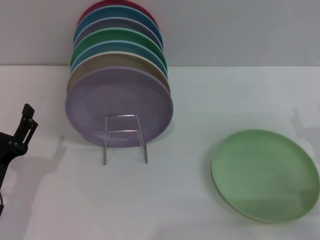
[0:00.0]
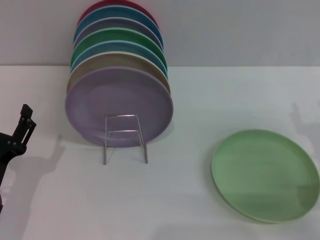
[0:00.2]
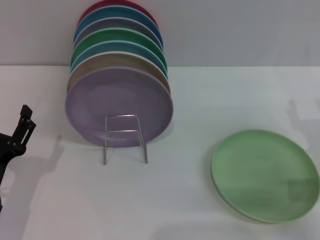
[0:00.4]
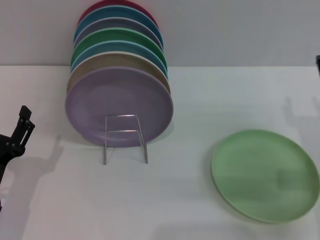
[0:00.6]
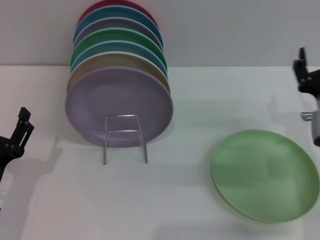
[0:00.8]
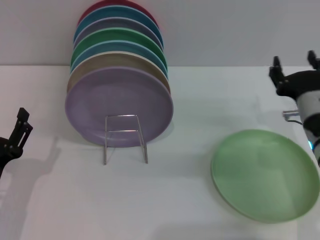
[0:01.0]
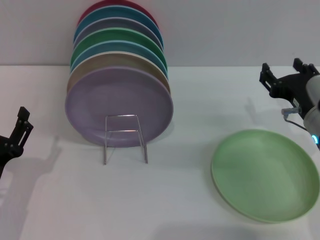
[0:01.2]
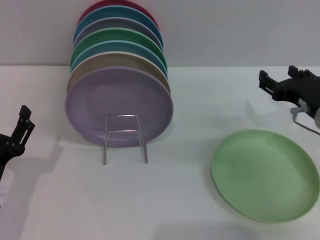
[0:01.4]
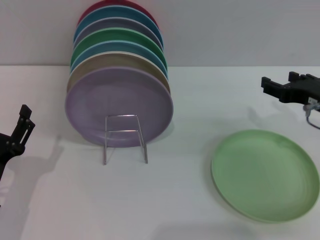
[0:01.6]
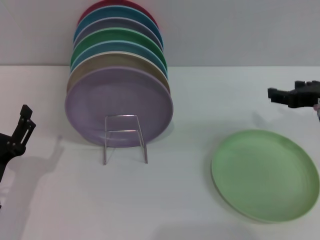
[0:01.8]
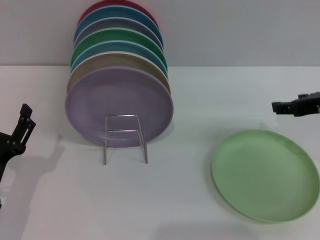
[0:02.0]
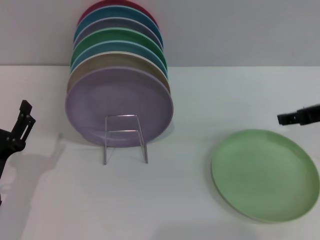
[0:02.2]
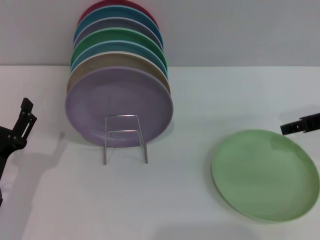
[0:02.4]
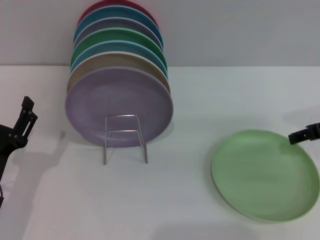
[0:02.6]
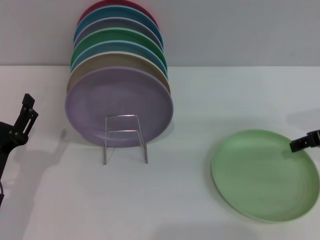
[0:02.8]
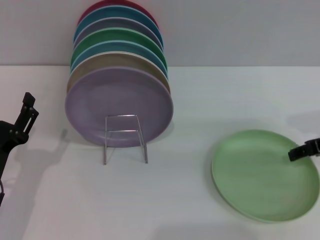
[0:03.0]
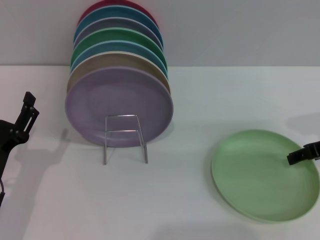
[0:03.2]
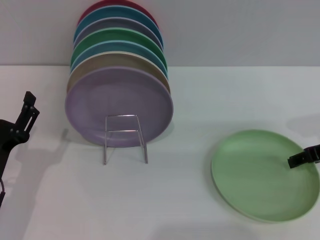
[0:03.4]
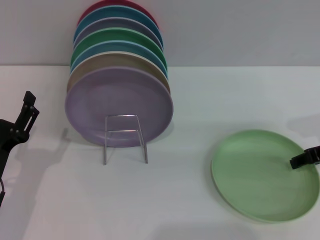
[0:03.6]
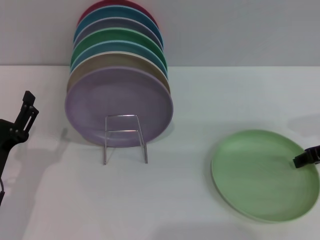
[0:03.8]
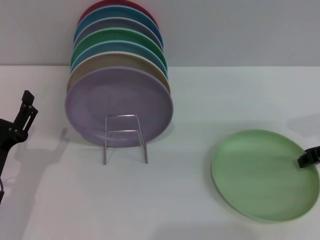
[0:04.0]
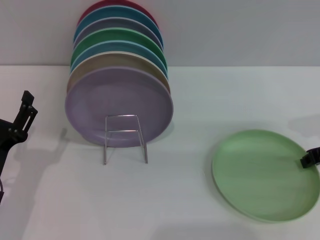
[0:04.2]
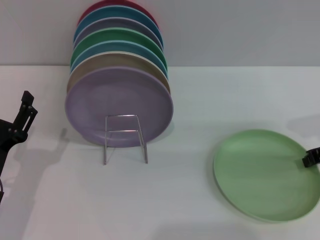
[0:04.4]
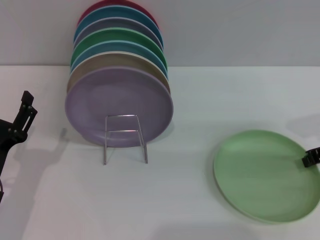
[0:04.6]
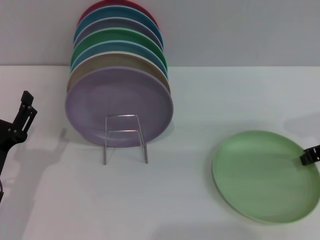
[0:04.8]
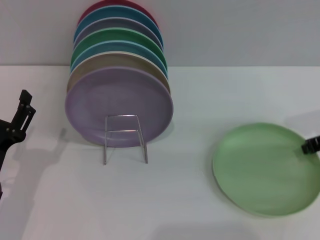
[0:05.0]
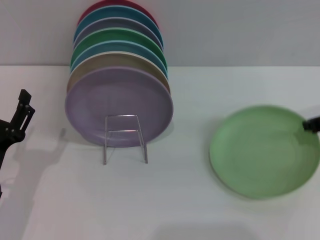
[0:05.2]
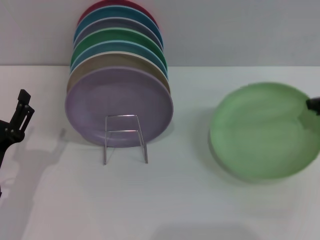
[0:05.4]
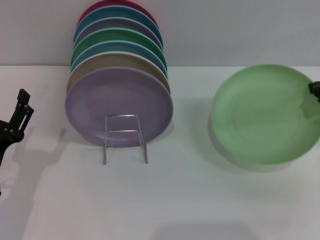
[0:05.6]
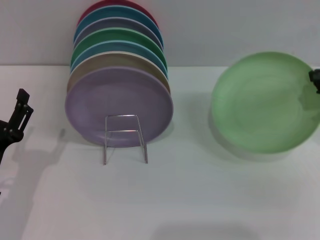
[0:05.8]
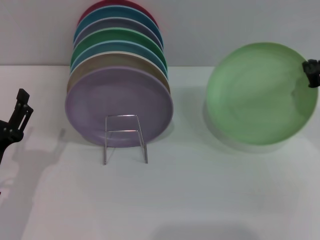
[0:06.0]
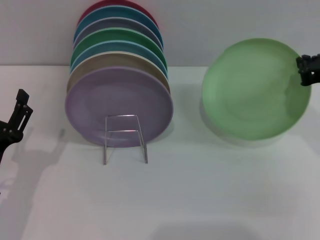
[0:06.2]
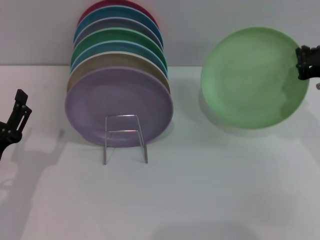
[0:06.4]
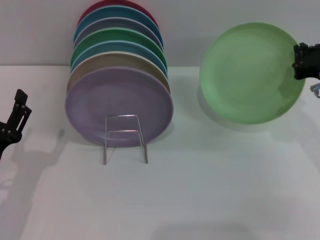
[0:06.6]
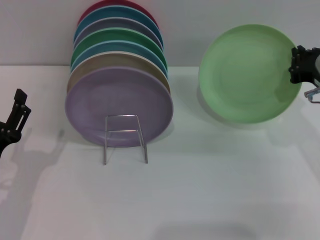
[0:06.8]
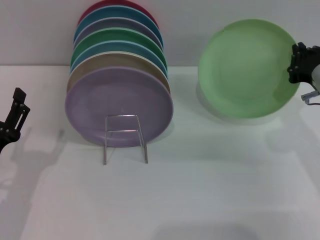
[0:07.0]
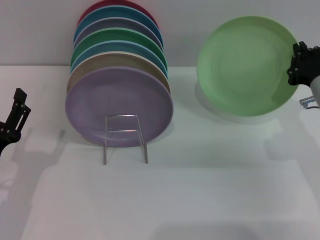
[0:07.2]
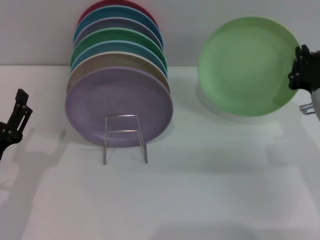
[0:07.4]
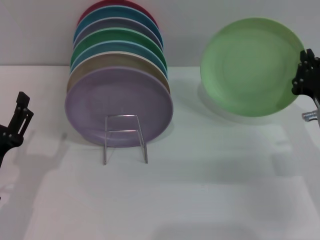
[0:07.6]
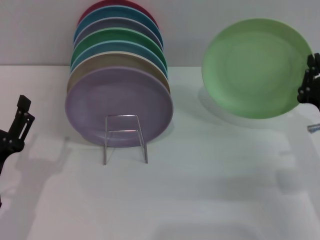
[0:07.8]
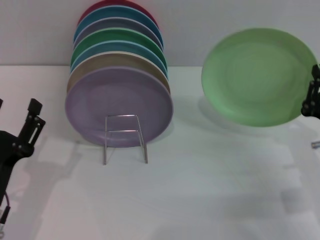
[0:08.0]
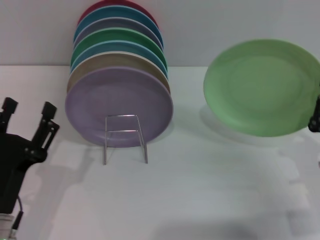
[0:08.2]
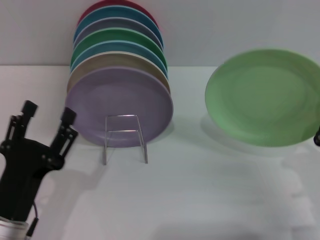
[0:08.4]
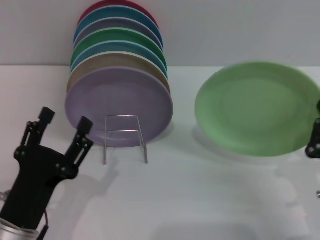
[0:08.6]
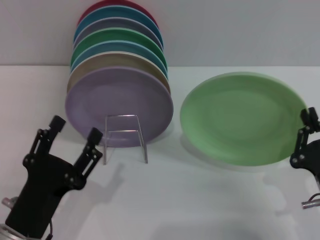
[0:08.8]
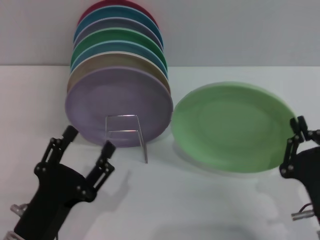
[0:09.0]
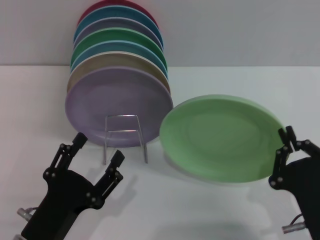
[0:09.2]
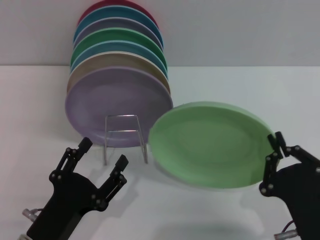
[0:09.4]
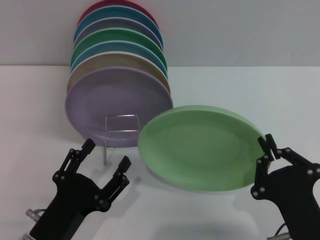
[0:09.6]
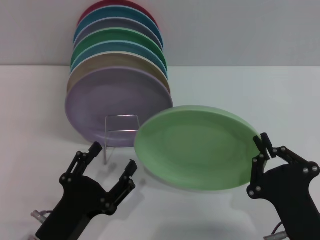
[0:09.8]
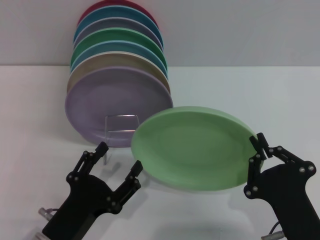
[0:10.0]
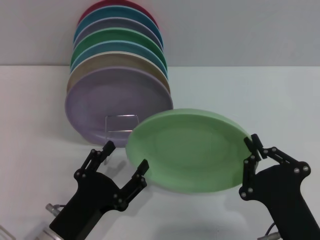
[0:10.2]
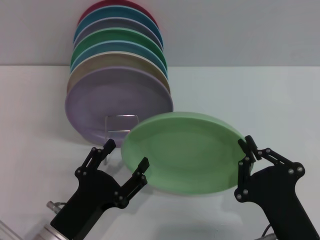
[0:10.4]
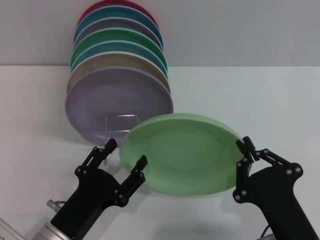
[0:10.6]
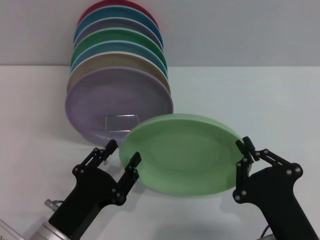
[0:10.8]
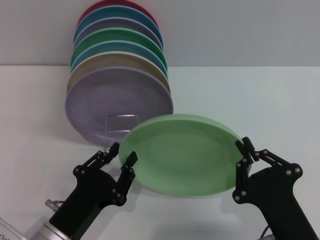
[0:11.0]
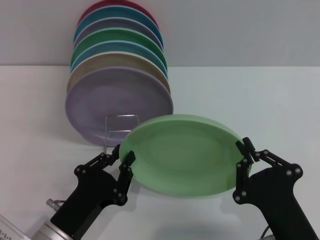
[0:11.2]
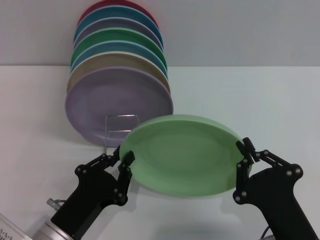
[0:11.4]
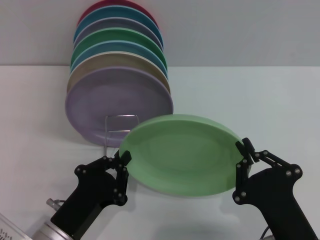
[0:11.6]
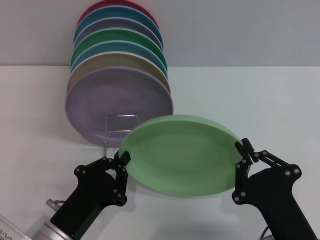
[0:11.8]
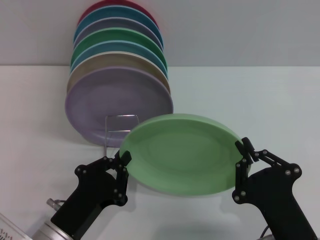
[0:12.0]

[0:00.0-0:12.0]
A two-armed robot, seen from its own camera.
Task of the whole recording: Grip the plate with one hand, pass it to the other, then set it on the shelf.
Step, 0:00.0 to 0:06.0: Pick up the plate with the right gripper.
0:00.0 to 0:01.6: The right gripper travels upward and forward by about 10 cm.
0:03.0 to 0:04.4: The right gripper closes.
0:04.4 to 0:06.0: The right gripper goes roughly 5 cm upward.
0:06.0 to 0:07.6: The right gripper heads downward, covering some 10 cm.
0:07.6 to 0:09.0: The left gripper is displaced to the right and backward by about 10 cm; the right gripper heads backward, covering approximately 15 cm.
0:10.4 to 0:12.0: The left gripper closes its fingers.

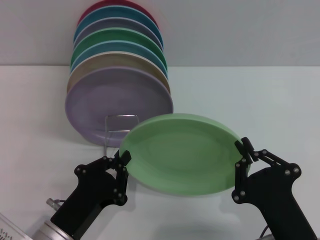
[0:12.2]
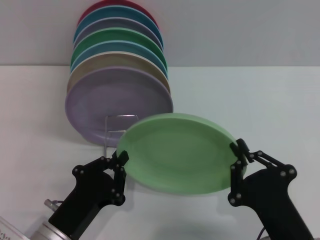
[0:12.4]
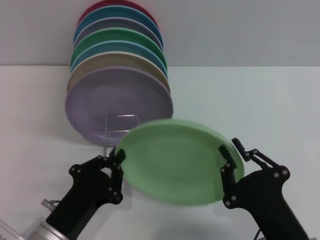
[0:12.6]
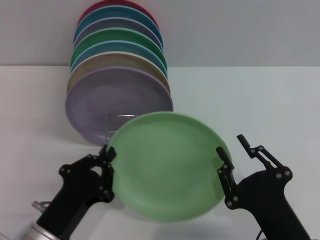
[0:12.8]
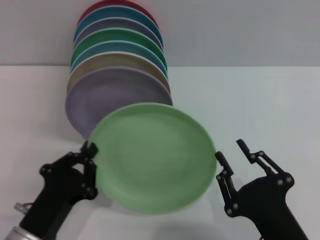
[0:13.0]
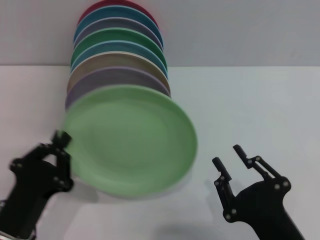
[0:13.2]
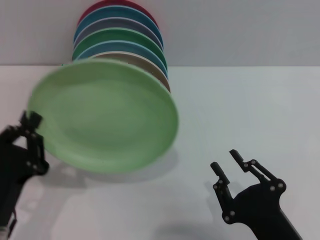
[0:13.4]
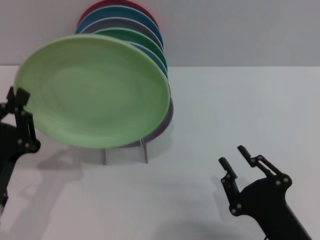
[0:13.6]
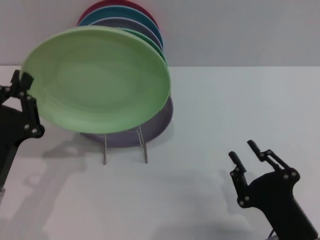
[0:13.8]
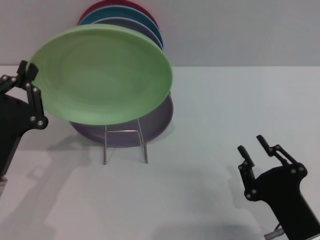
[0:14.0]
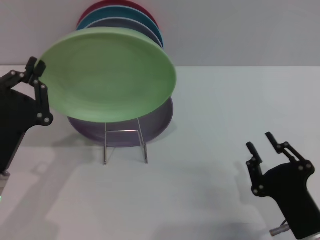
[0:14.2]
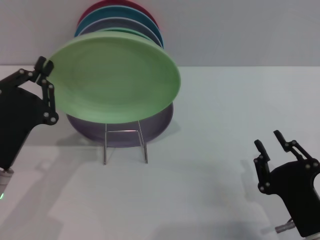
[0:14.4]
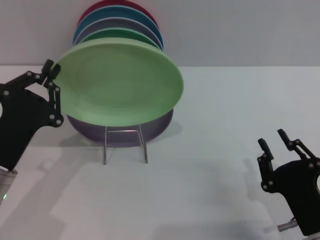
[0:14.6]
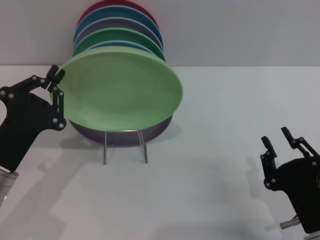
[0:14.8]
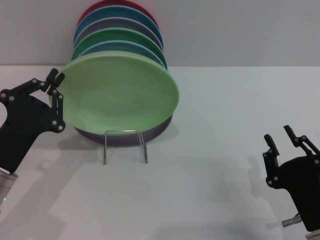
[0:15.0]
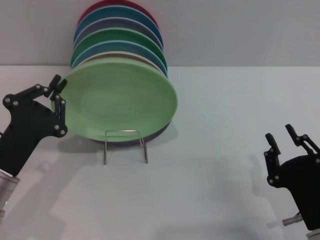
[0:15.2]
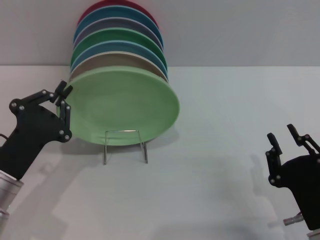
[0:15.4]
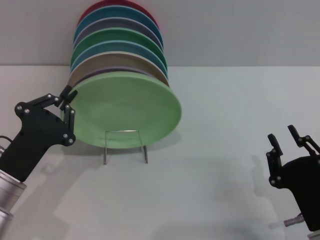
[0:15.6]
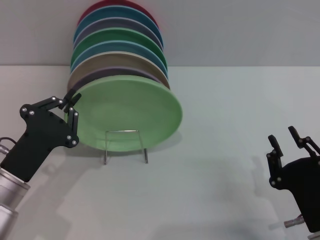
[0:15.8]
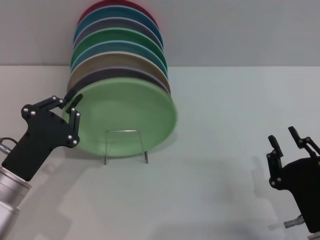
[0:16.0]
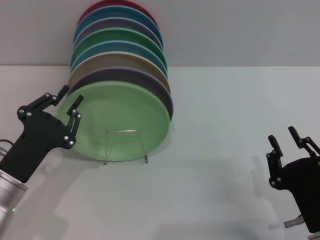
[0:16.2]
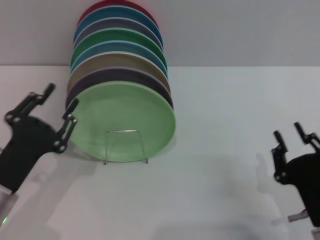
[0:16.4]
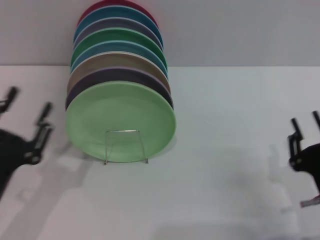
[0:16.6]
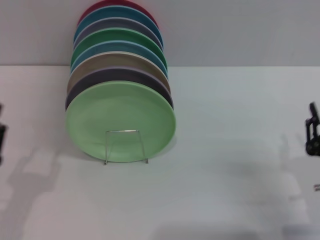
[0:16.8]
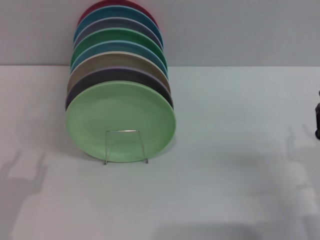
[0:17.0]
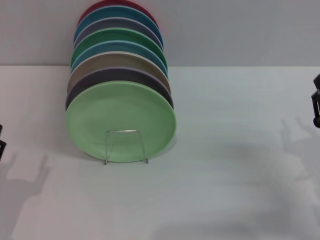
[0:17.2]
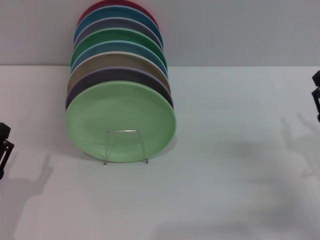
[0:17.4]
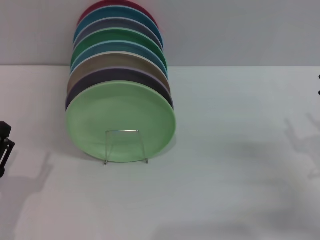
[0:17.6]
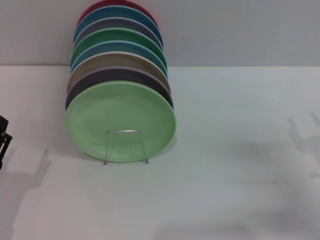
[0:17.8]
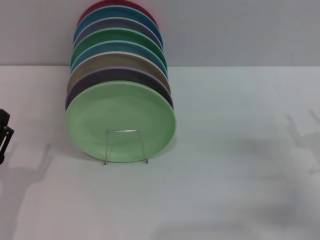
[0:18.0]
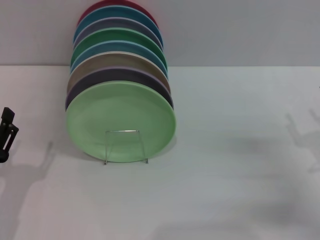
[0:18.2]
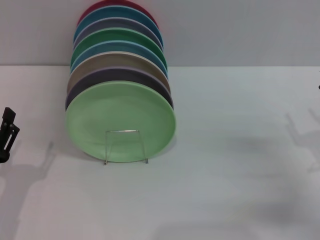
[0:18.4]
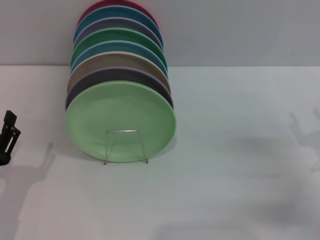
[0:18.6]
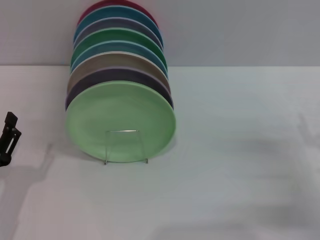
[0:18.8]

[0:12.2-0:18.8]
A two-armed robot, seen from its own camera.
Task of the whole recording: Grip the plate with one hand, pass it to the other, then set it on the shelf.
Step, 0:13.4 to 0:16.4: Place the plate on the shelf with the left gripper.
0:12.2 to 0:13.8: The right gripper opens its fingers. The left gripper shifts about 10 cm to the left and upward.
0:15.4 to 0:17.2: The right gripper heads to the right and forward, covering roughly 10 cm. The left gripper heads backward, covering about 10 cm, and opens its fingers.
